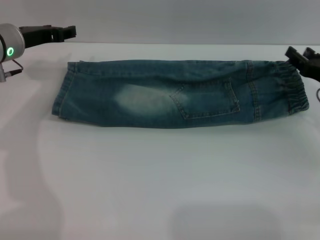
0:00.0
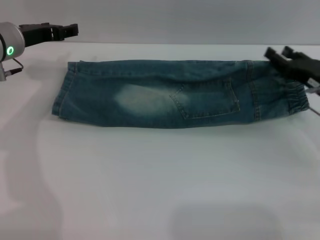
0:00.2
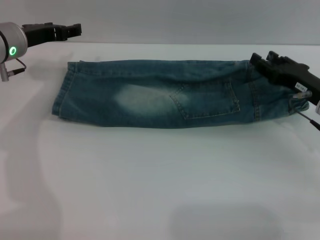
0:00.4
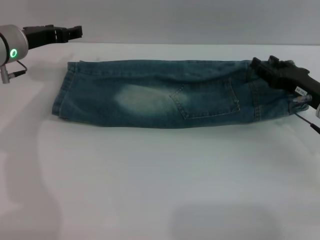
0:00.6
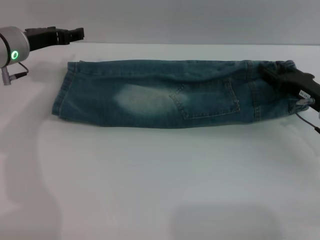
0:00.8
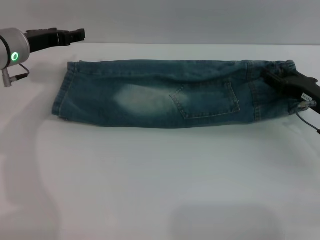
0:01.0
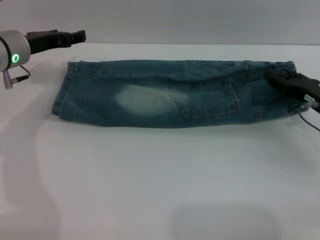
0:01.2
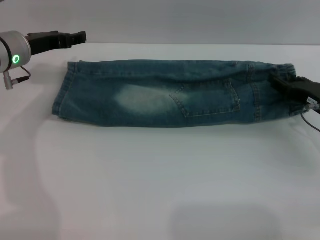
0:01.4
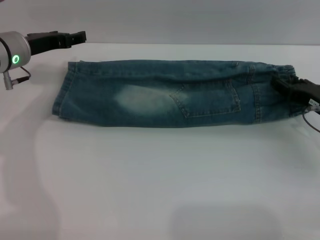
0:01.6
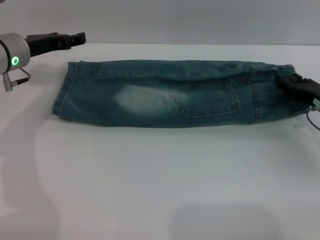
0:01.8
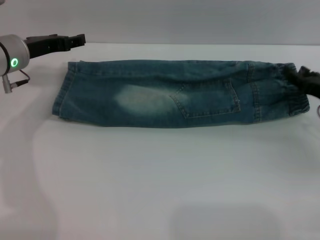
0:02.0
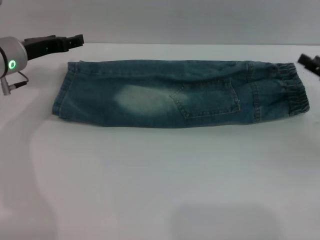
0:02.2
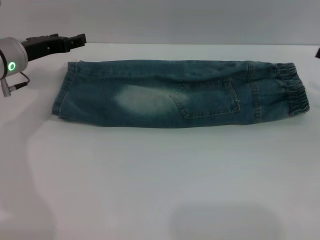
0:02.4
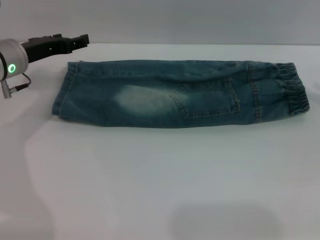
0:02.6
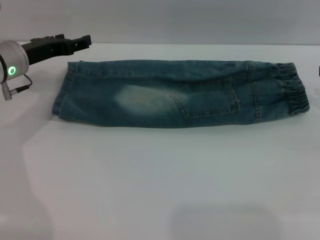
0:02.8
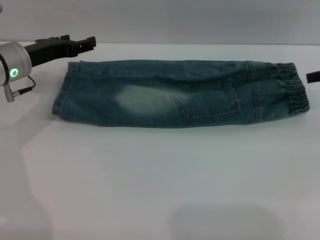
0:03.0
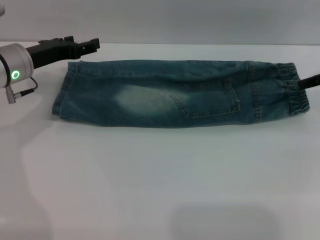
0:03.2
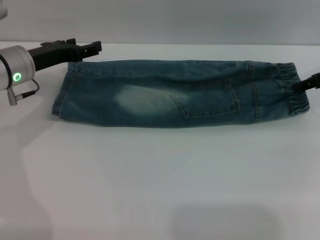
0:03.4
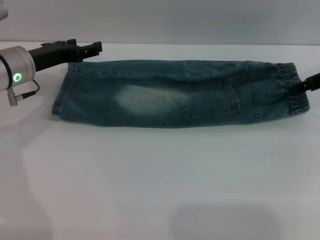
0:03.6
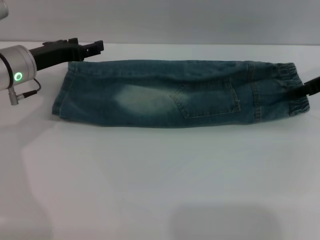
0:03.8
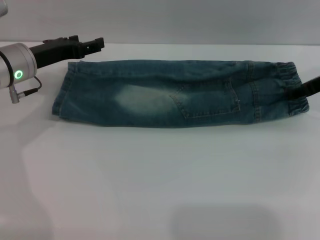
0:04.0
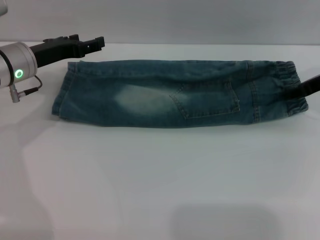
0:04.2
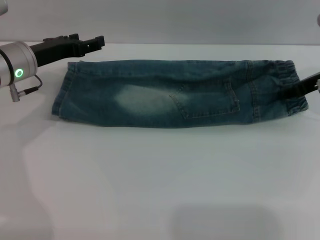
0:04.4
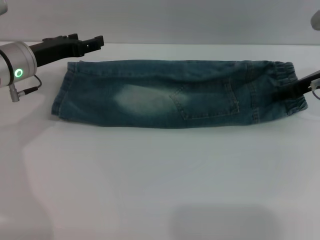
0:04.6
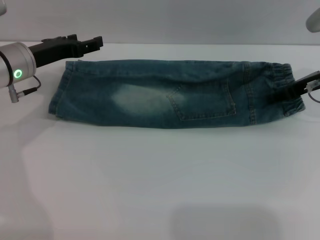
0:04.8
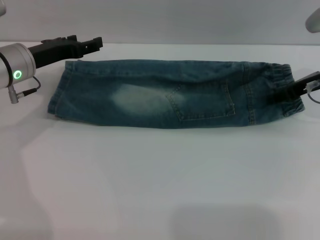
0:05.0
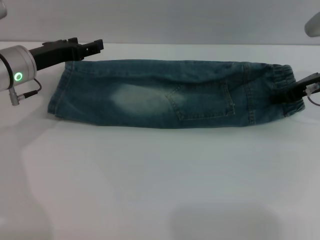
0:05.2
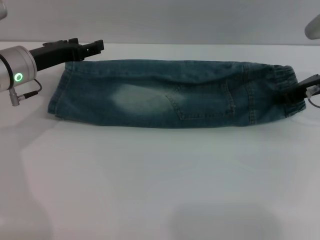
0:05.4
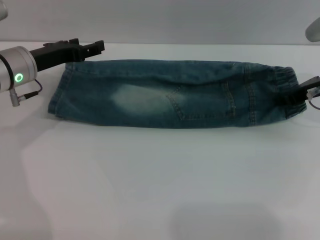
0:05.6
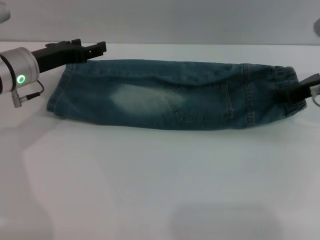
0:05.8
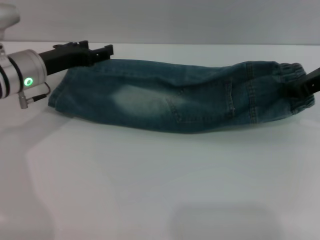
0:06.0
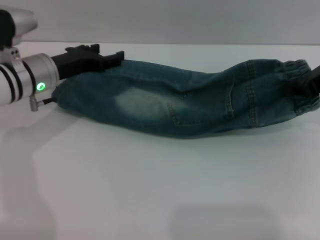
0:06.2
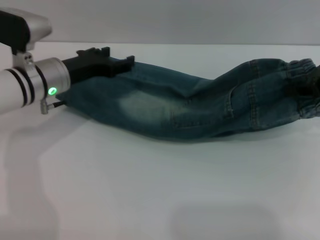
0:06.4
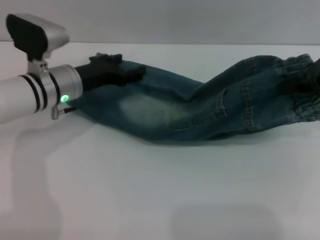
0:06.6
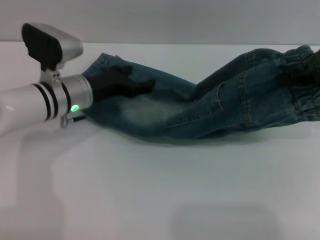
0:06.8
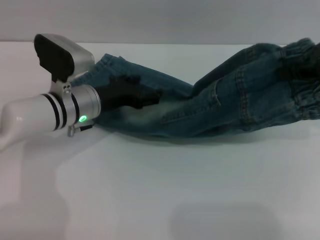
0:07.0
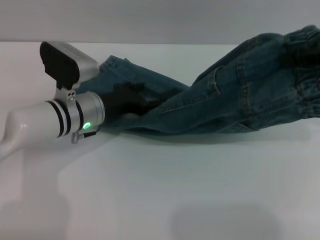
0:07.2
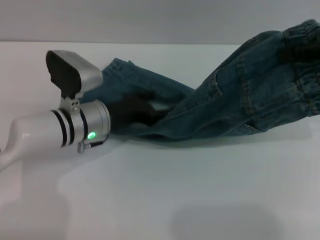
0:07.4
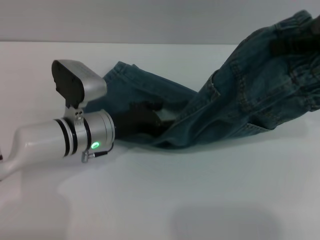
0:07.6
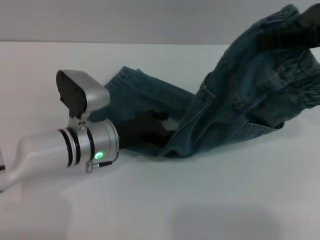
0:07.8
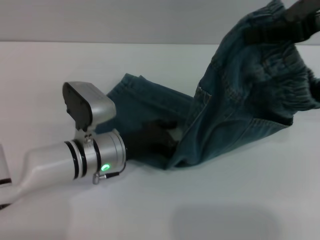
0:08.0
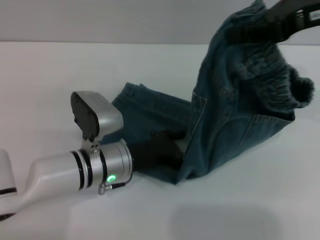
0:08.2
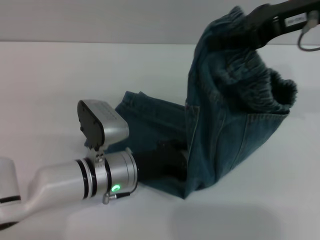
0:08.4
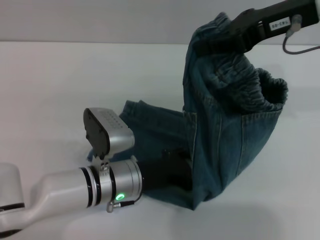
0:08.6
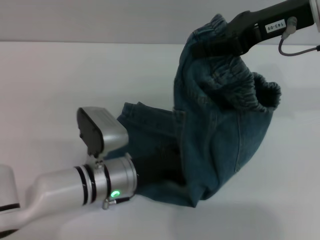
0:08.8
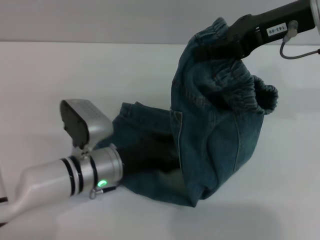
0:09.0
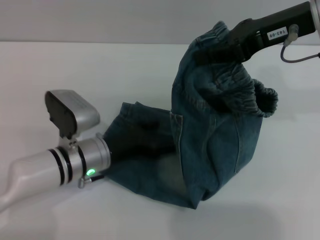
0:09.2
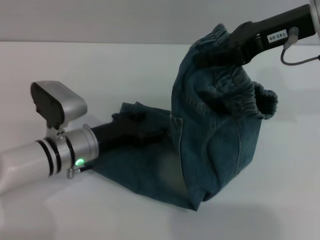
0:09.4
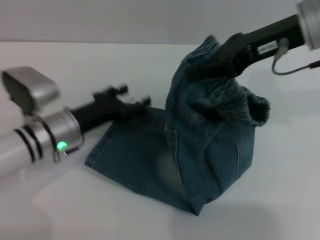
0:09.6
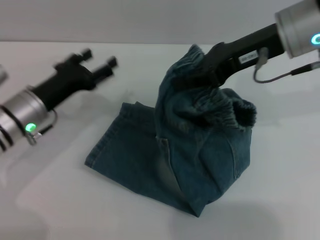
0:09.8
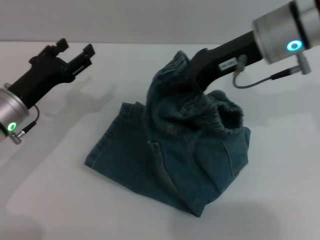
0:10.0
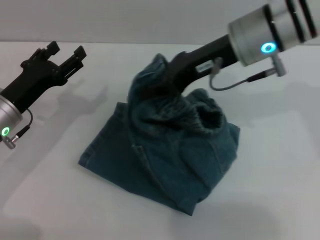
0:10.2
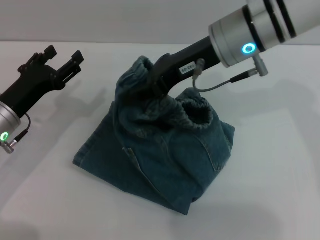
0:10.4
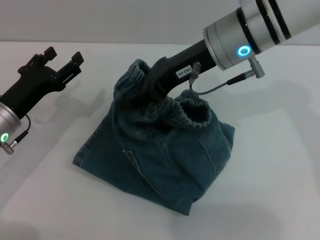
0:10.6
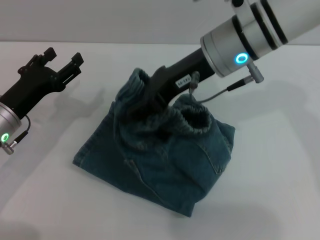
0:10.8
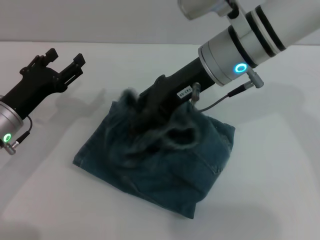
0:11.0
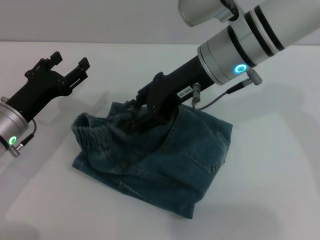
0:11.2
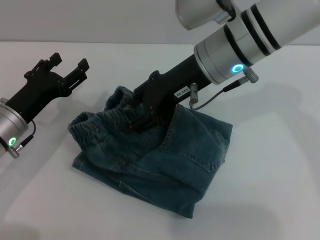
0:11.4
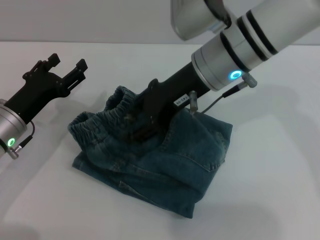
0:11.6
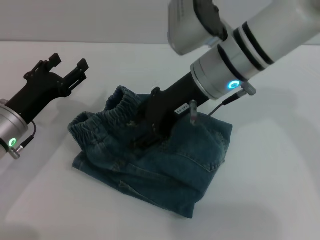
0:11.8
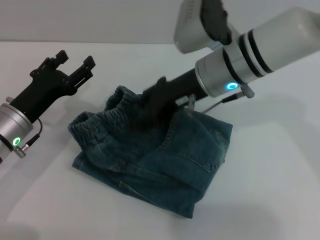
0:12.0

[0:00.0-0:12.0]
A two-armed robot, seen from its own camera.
Step, 0:00.0 to 0:11.8: Fold the shorts from right to left with right gripper.
0:00.0 to 0:01.6: The grippers make only small movements.
0:01.6 to 0:03.0: The right gripper is displaced upward and to the right by approximately 15 cm.
0:03.0 to 0:04.4: The right gripper moves to the left, some 5 cm.
0:04.4 to 0:06.0: The right gripper closes up.
0:06.0 to 0:07.6: The left gripper moves to the right, downward and backward, approximately 15 cm, while the right gripper moves upward, about 15 cm.
0:07.6 to 0:09.0: The left gripper shifts about 5 cm backward. The right gripper goes approximately 10 cm to the left.
0:09.0 to 0:10.4: Both grippers travel together to the left, some 10 cm.
0:10.4 to 0:12.0: The right gripper opens its fingers.

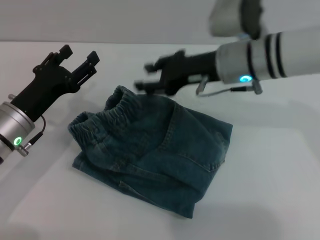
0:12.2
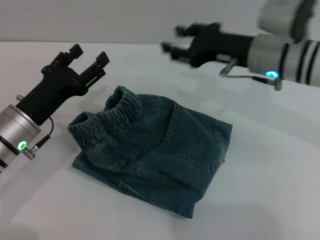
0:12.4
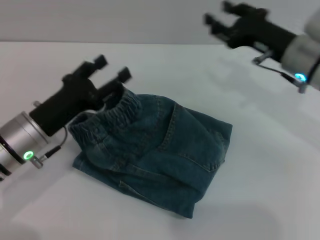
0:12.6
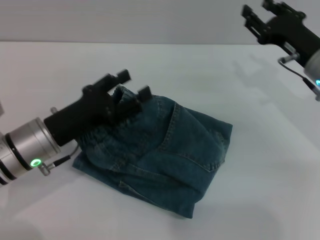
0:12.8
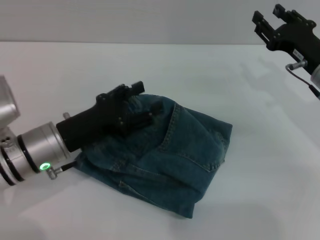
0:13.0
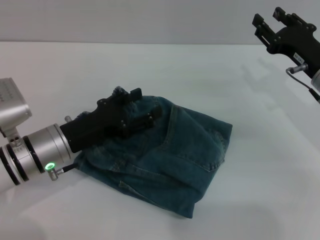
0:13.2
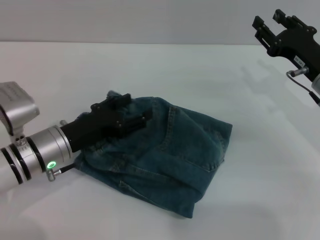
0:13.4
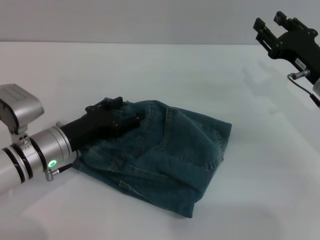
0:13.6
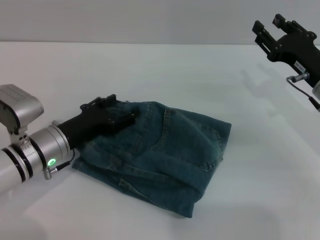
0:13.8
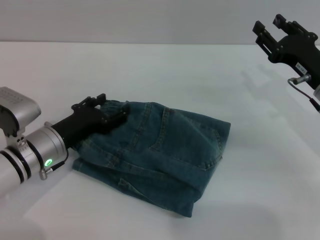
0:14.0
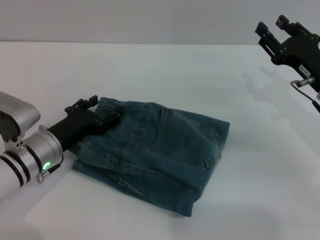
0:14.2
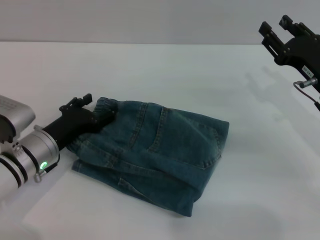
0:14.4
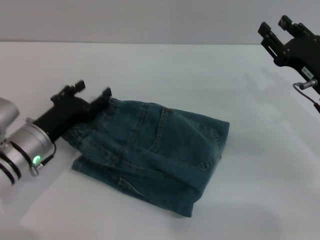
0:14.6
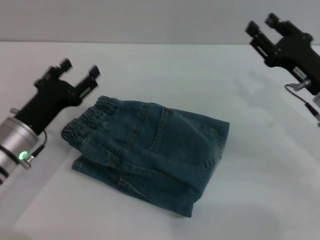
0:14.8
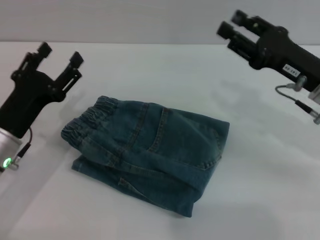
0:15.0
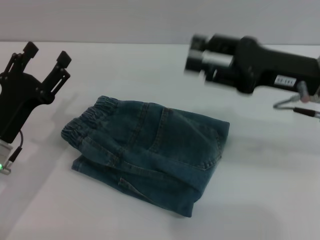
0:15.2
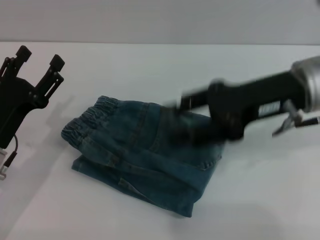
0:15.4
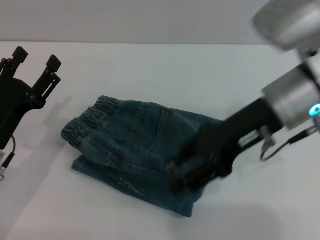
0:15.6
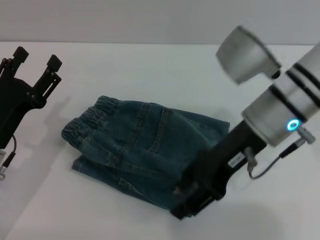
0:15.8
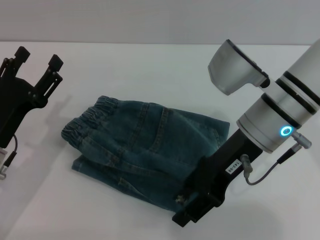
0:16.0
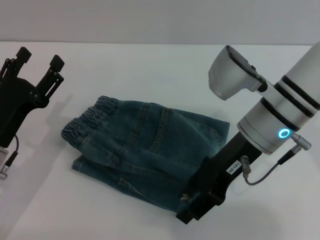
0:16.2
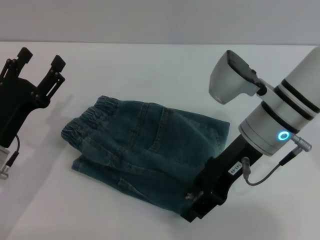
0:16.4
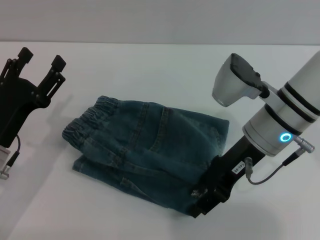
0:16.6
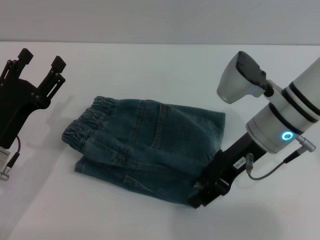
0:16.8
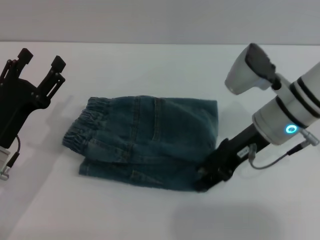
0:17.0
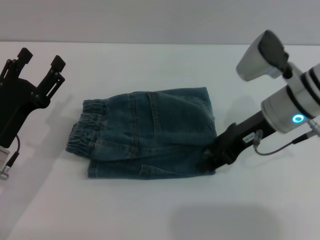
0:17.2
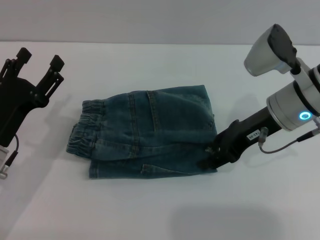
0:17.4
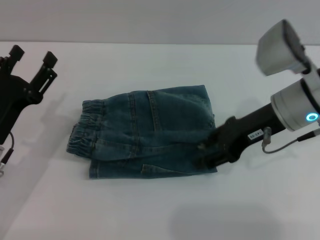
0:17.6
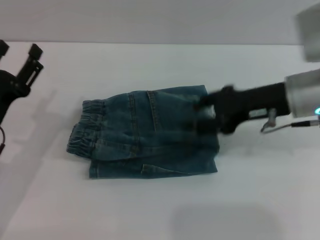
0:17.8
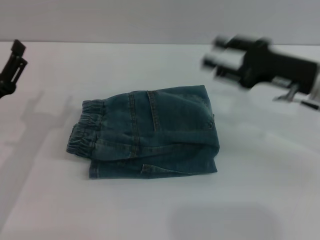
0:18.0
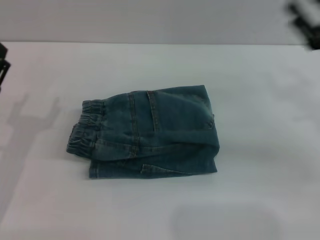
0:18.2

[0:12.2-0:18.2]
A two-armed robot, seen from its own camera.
Step, 0:12.2 to 0:17.4: Place the folded trousers onto the center area with right gripper.
0:12.2 to 0:13.8: The right gripper heads to the right and downward, covering approximately 15 cm.
0:13.8 to 0:15.2: The left gripper changes place by roughly 10 cm. Meanwhile the right gripper is displaced upward by about 10 cm.
0:15.2 to 0:16.6: The right gripper shifts roughly 10 cm to the left.
0:16.6 to 0:18.2: The right gripper is displaced to the right by roughly 15 cm.

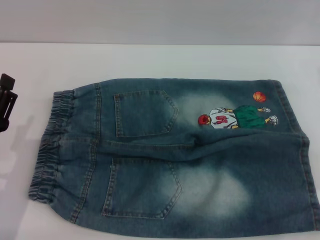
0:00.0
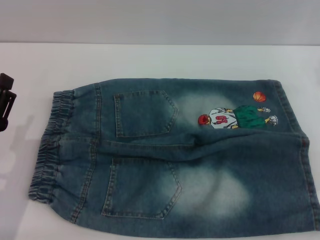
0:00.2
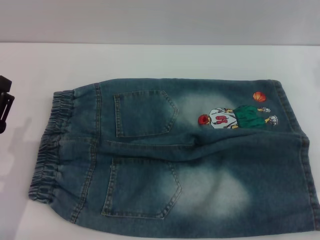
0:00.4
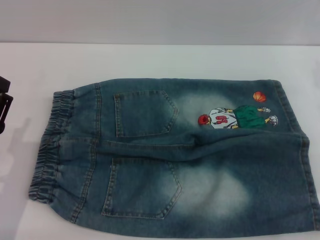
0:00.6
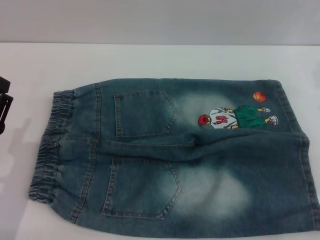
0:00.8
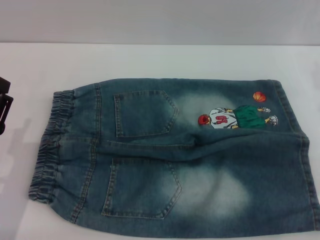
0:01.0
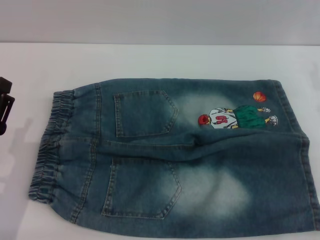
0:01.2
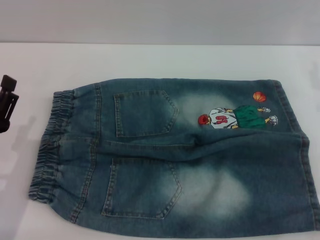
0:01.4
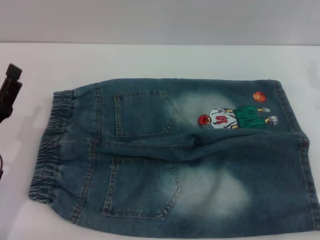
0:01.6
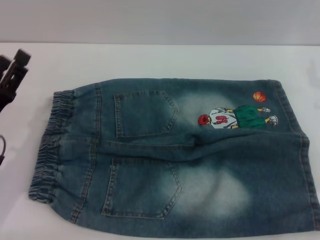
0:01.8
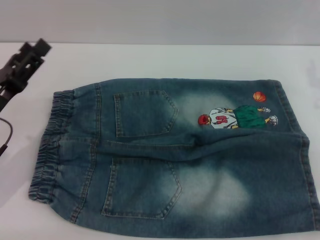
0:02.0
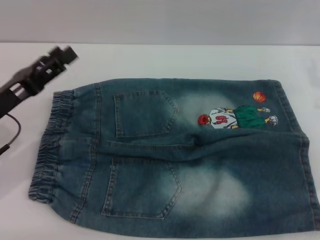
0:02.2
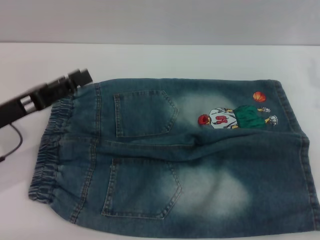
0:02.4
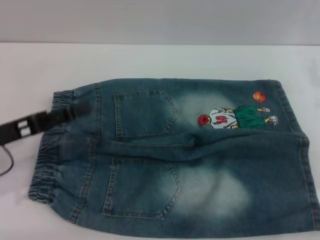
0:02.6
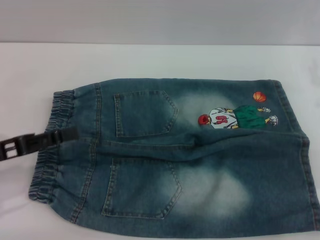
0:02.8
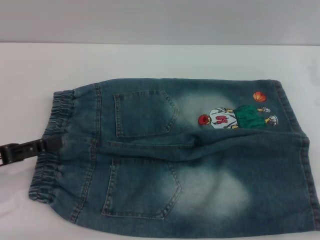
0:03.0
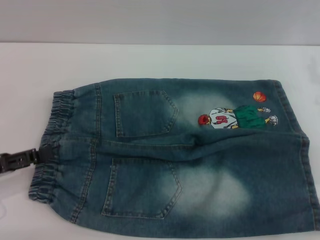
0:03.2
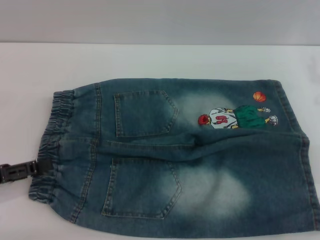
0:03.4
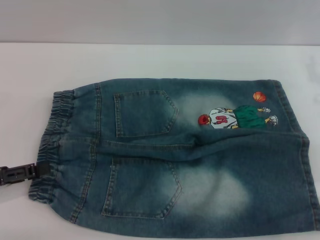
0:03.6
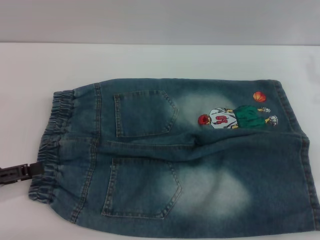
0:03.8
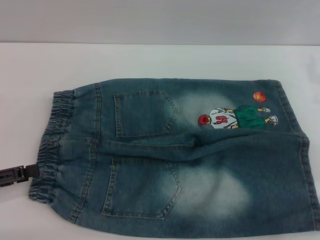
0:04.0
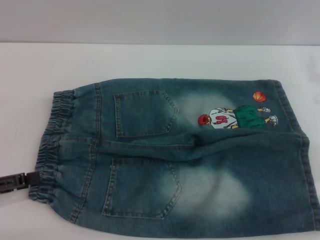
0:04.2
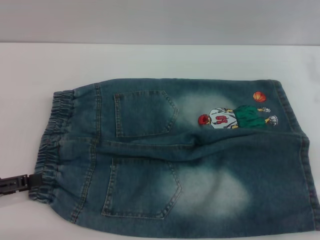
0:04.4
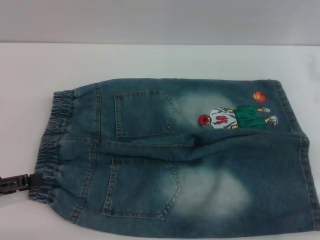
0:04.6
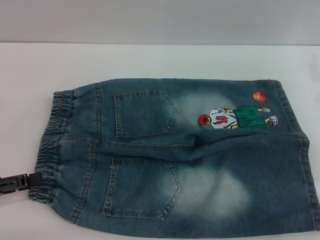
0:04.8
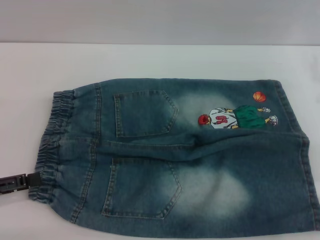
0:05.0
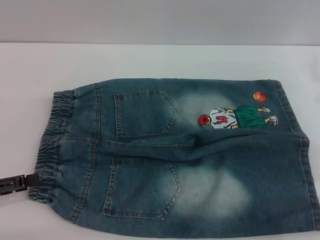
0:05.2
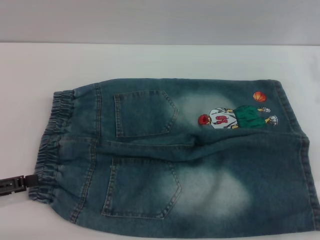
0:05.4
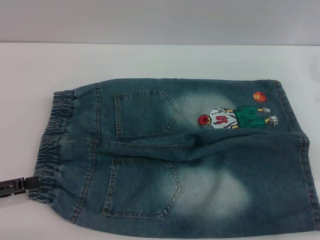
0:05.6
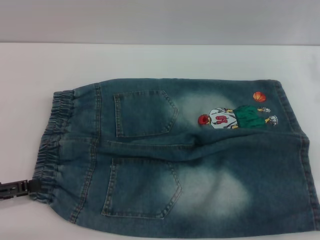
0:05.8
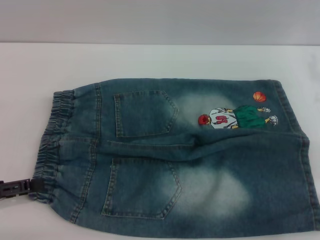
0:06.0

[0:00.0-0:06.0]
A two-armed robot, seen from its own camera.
0:00.0 to 0:01.6: There are only small adjustments of the grippers.
0:01.6 to 0:03.0: The left gripper moves to the left, about 5 cm.
0:03.0 to 0:04.4: The grippers move only a little.
0:04.4 to 0:06.0: Both grippers stay put.
